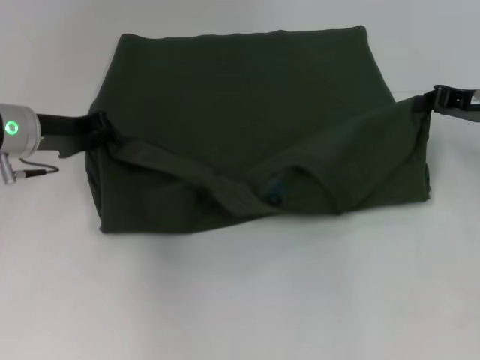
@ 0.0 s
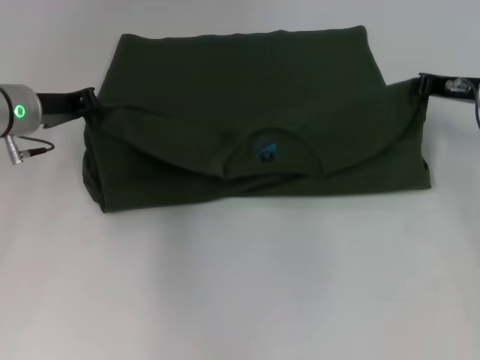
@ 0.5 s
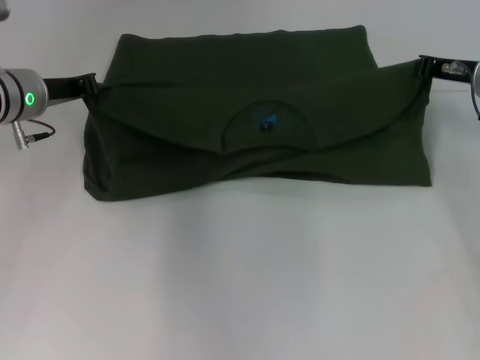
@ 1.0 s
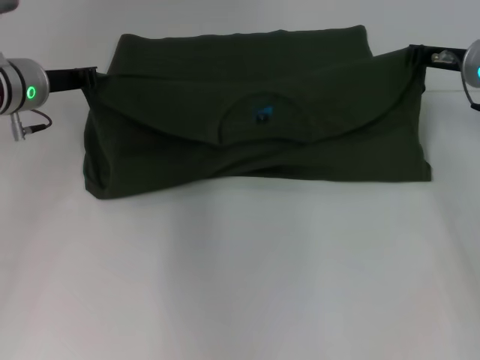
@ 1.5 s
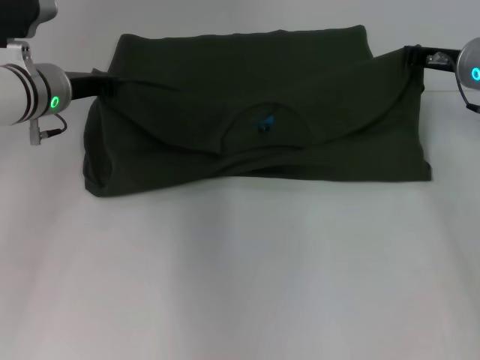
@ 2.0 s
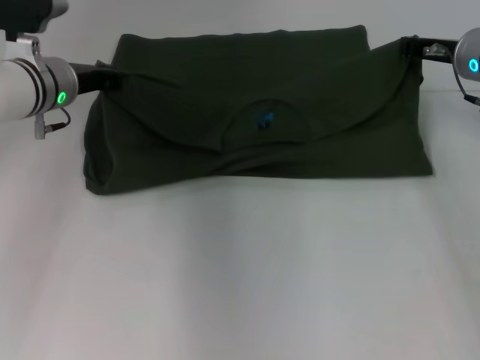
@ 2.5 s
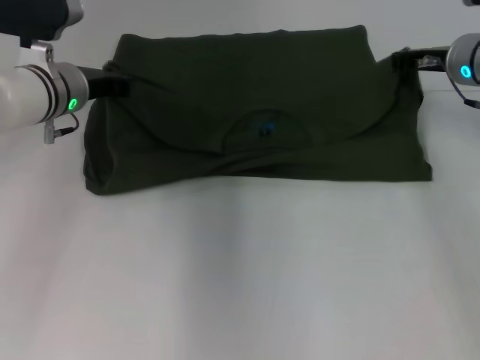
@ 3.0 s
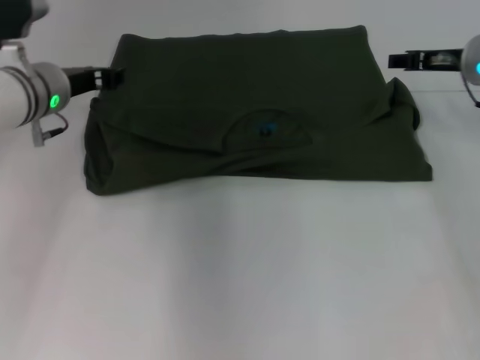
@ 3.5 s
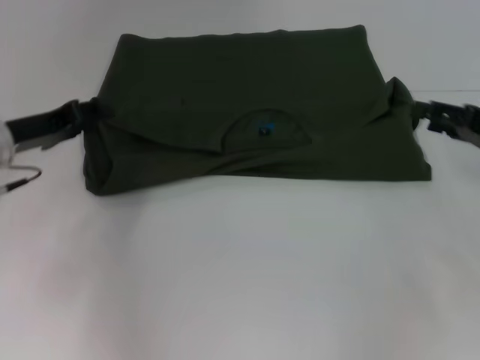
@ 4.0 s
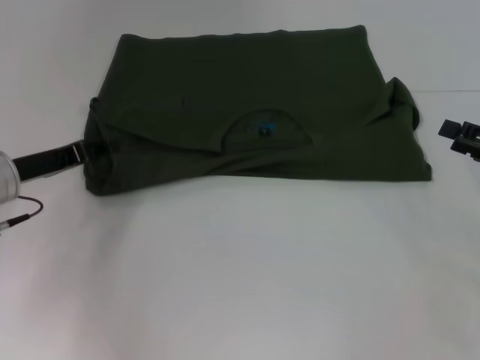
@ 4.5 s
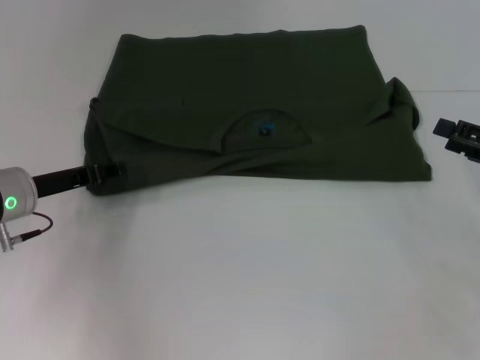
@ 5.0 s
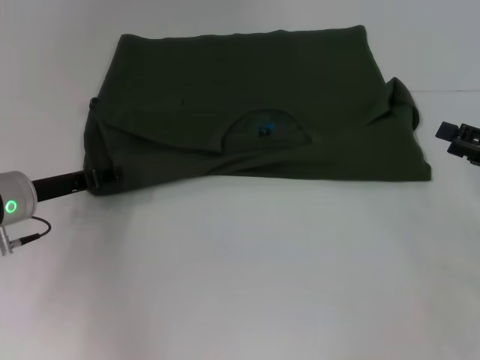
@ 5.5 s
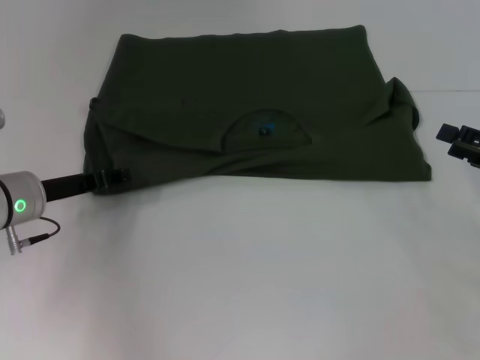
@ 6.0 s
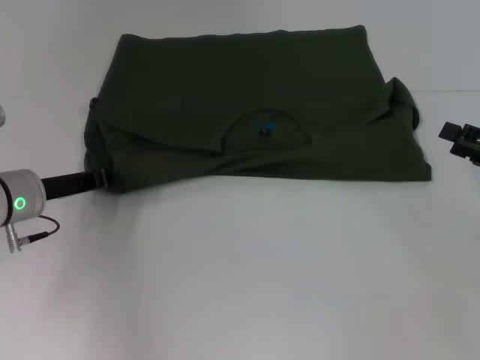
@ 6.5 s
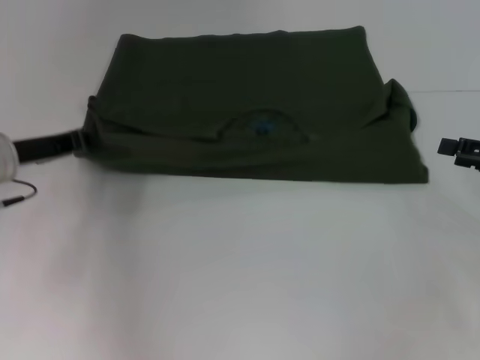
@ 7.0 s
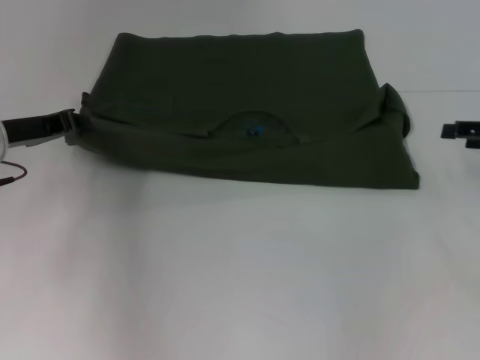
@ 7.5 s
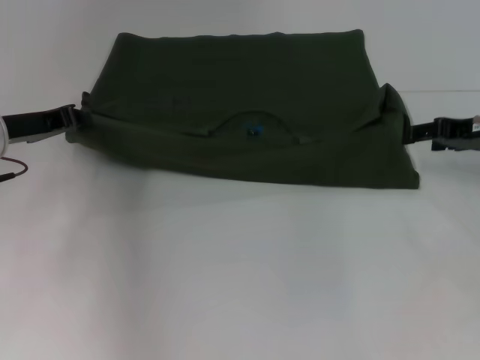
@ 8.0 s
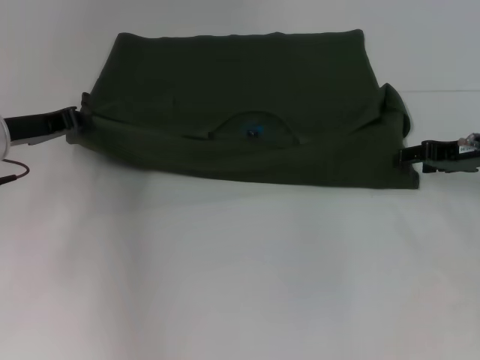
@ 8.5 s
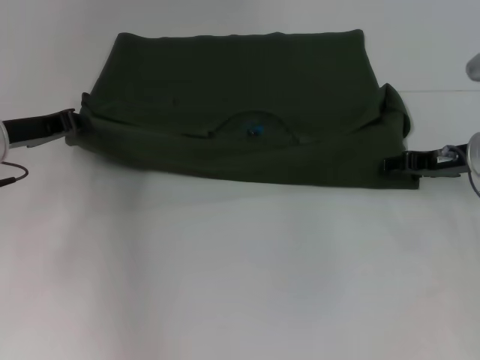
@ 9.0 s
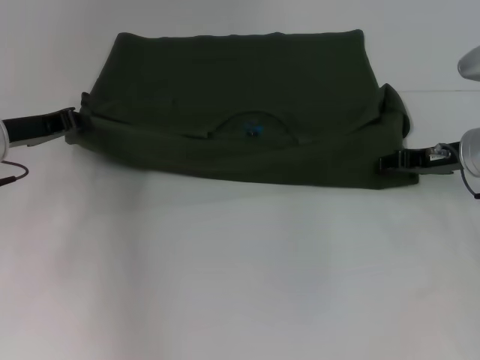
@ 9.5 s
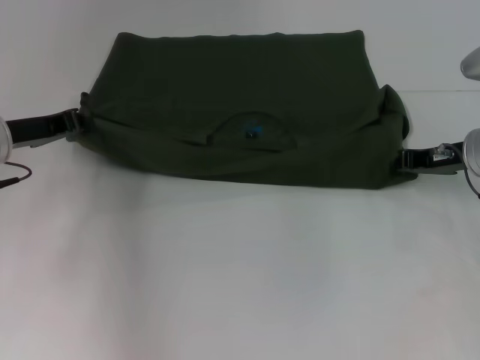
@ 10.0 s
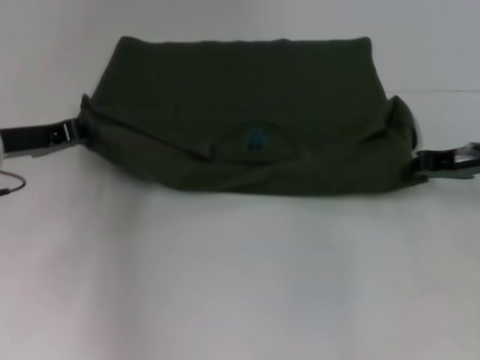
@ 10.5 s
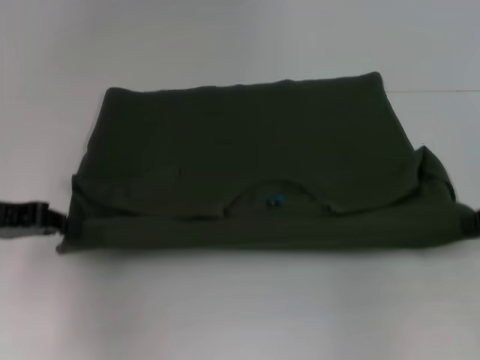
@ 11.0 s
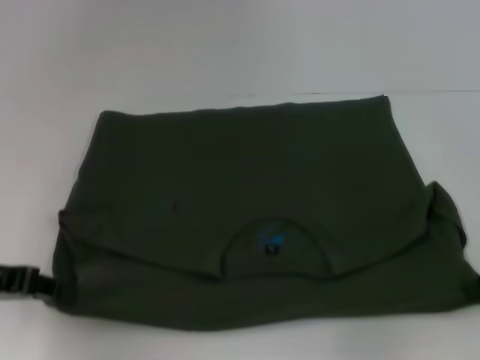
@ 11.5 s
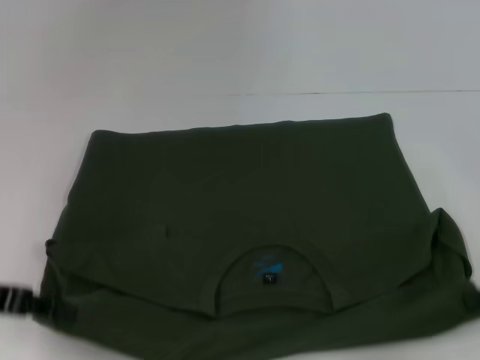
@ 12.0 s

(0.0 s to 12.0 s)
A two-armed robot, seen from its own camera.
Step, 0.0 s - 3.5 s: Fold the clothes with your left hand.
Step, 0.0 s - 3.5 s: Fold the clothes with your right hand.
Step, 4.0 s - 11.5 s: Pull the clothes with your left hand.
Step, 4.0 s - 11.5 s: Pull the clothes with your right hand.
0.0 s - 2.0 s: The right gripper heads to the left, covering approximately 5 cm, while the left gripper changes place by about 5 cm.
2.0 s - 4.0 s: The left gripper travels backward and to the left by about 10 cm, and opens its fingers. Meanwhile the right gripper goes about 15 cm backward and to the right, and opens.
4.0 s - 6.0 s: The right gripper ends up some 5 cm from where it was. Meanwhile the left gripper is displaced downward by roughly 5 cm.
6.0 s - 8.0 s: The left gripper shifts roughly 5 cm upward, and closes its fingers; the right gripper heads forward, covering roughly 10 cm.
8.0 s - 10.0 s: The right gripper shifts by approximately 5 cm, and closes its fingers.
10.0 s - 12.0 s: The left gripper moves backward, some 15 cm. The right gripper shifts roughly 15 cm backward and to the right.

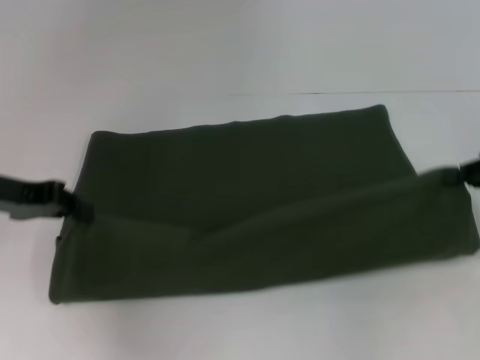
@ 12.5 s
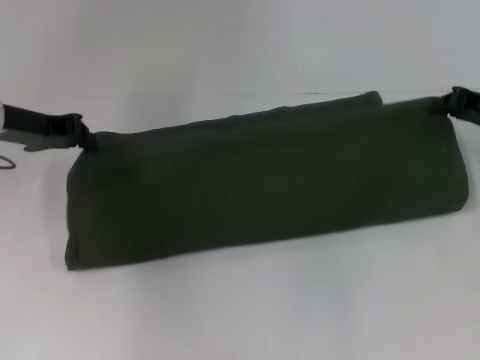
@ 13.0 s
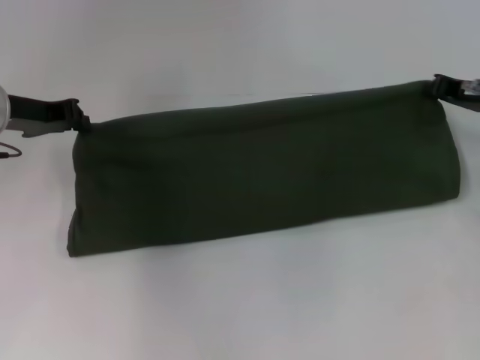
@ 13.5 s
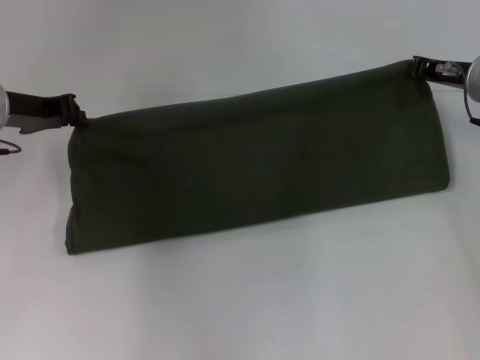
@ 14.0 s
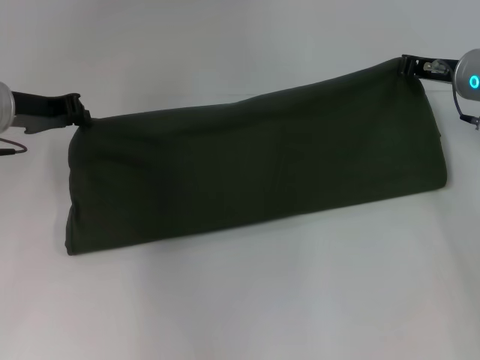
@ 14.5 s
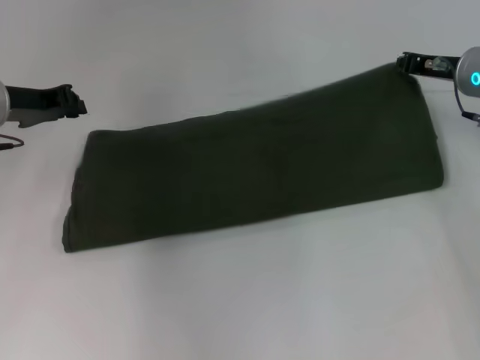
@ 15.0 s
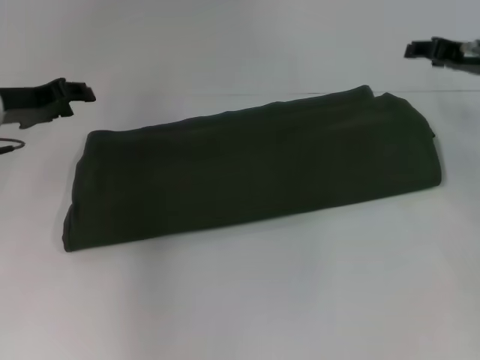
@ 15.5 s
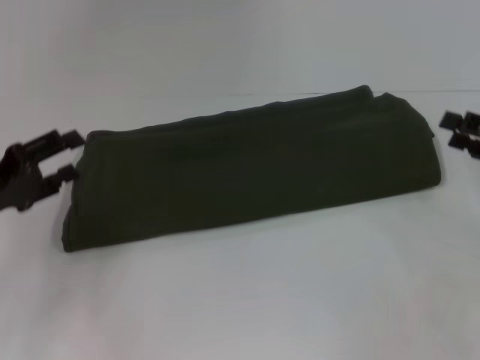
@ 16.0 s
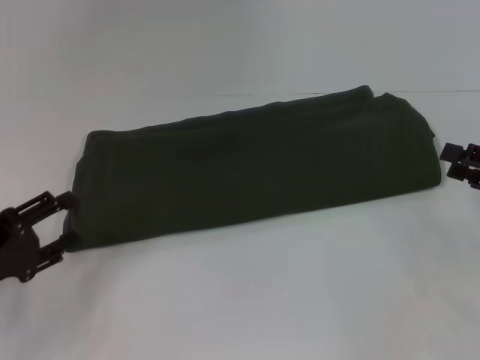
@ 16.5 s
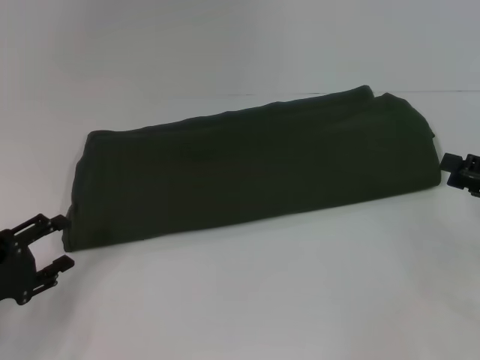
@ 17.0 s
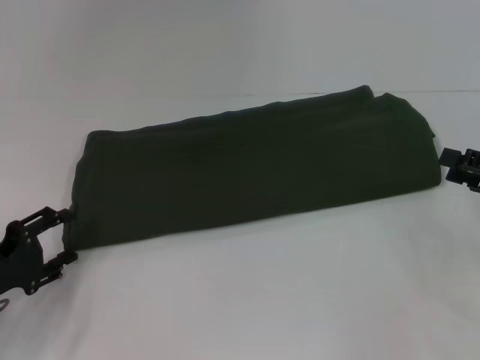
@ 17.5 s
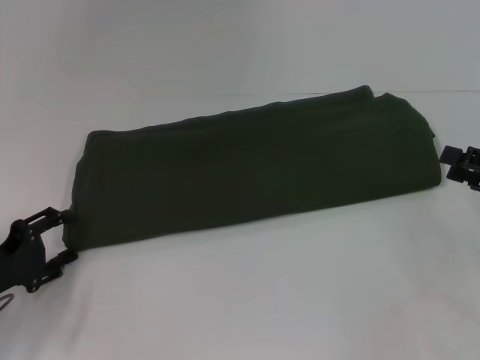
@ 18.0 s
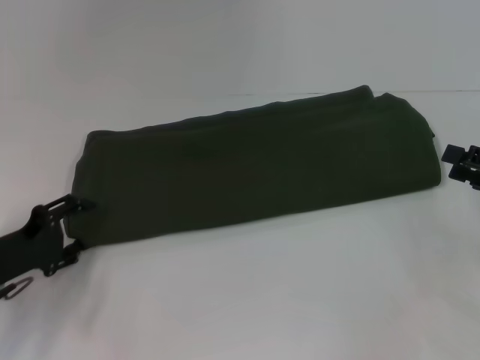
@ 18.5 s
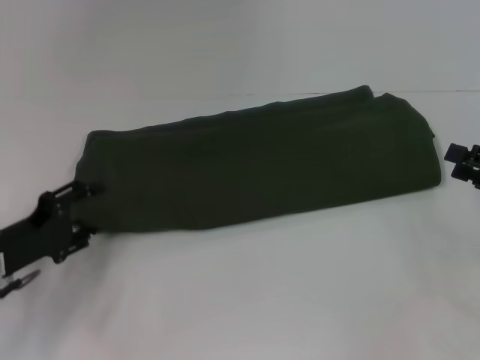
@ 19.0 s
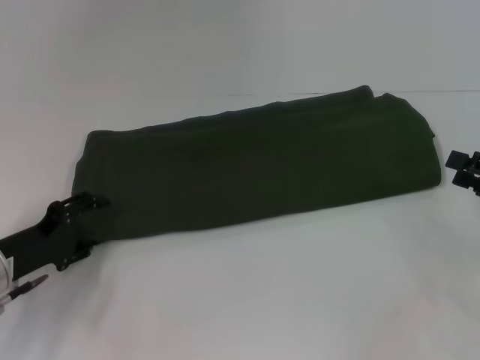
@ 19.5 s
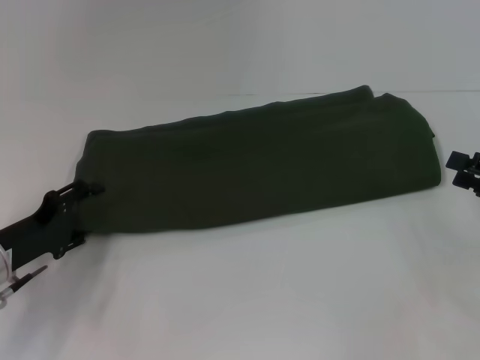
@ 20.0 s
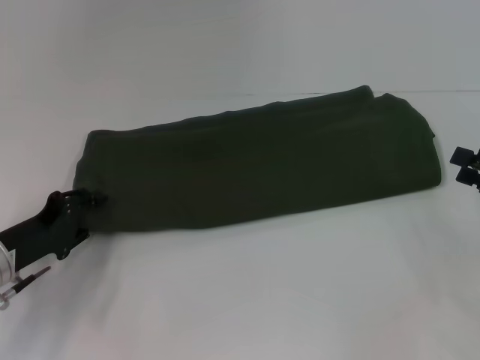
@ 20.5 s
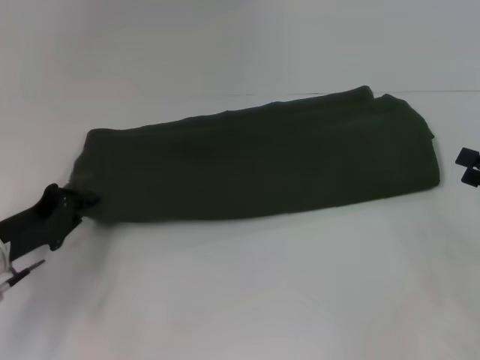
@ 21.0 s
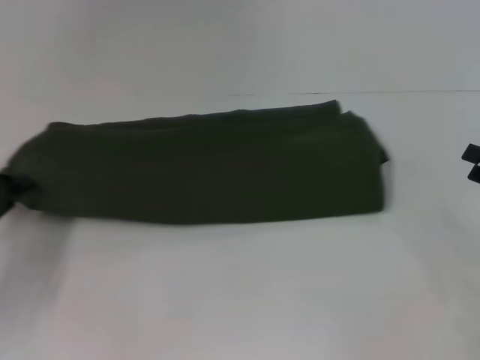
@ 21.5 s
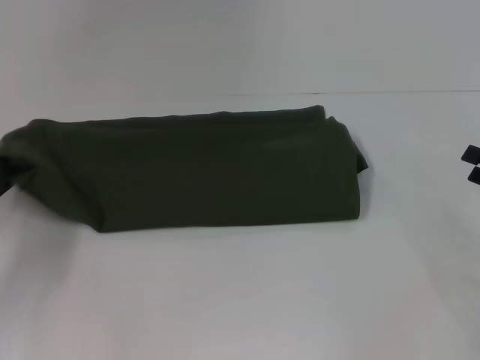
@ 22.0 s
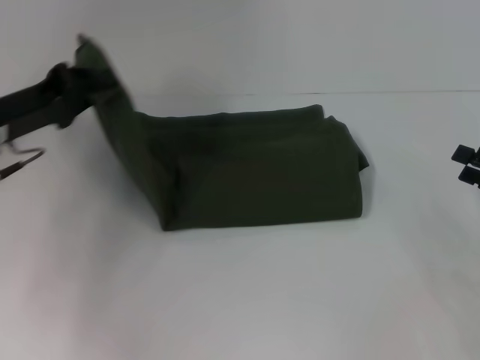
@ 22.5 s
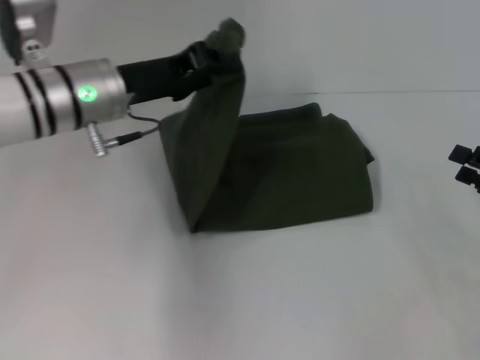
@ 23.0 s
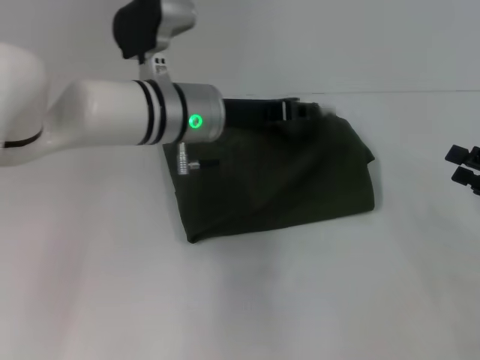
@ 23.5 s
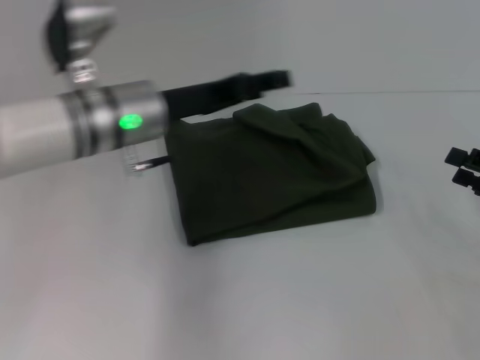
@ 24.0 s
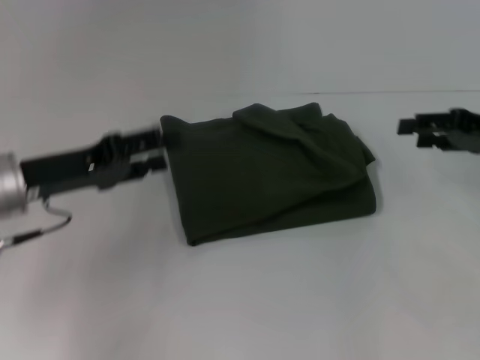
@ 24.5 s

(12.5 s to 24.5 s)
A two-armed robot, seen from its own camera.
Step, 12.5 s - 15.5 s: Fold the clothes with your right hand.
Step, 12.5 s - 23.5 s: Fold the clothes with your left hand.
12.5 s - 14.5 s: The left gripper shifts roughly 10 cm forward. Meanwhile the right gripper heads forward and to the left, covering approximately 15 cm.
14.5 s - 16.5 s: The right gripper shifts about 20 cm backward and to the right, and opens its fingers, while the left gripper is displaced backward and downward by about 20 cm, and opens its fingers.
16.5 s - 18.5 s: The left gripper shifts by approximately 5 cm.
18.5 s - 20.5 s: The grippers move only a little.
20.5 s - 22.5 s: The left gripper travels upward and forward by approximately 15 cm, and closes.
22.5 s - 24.5 s: The right gripper heads forward and upward, covering some 10 cm, while the left gripper goes to the right and returns, roughly 20 cm each way, and opens.

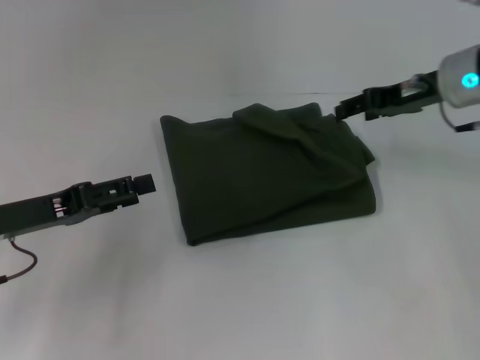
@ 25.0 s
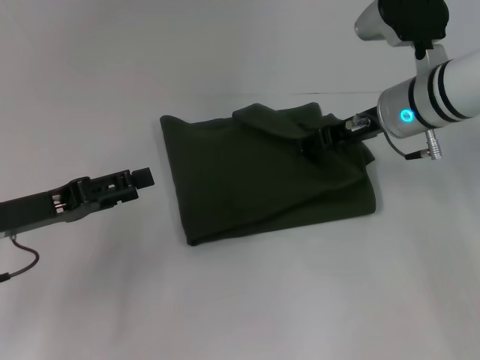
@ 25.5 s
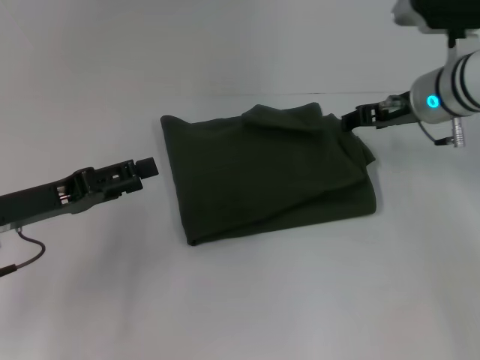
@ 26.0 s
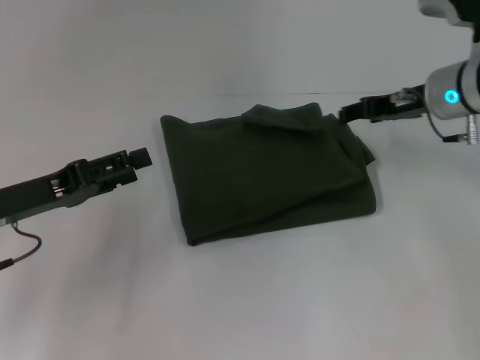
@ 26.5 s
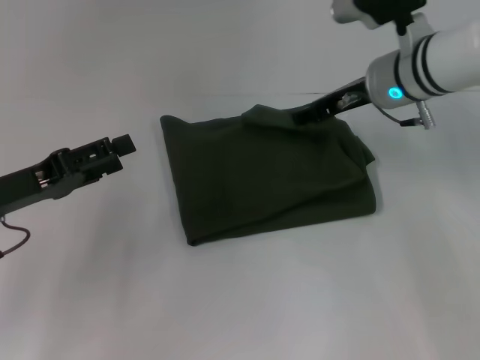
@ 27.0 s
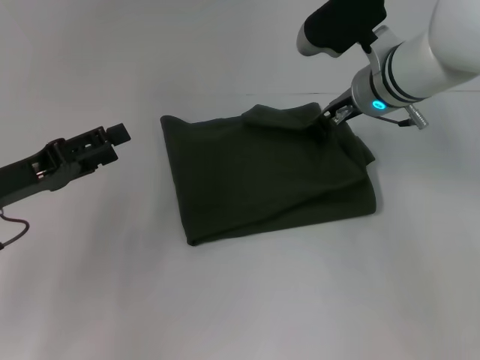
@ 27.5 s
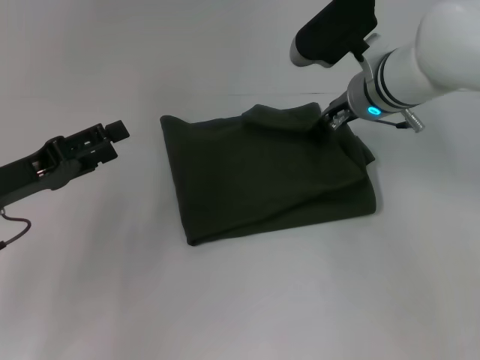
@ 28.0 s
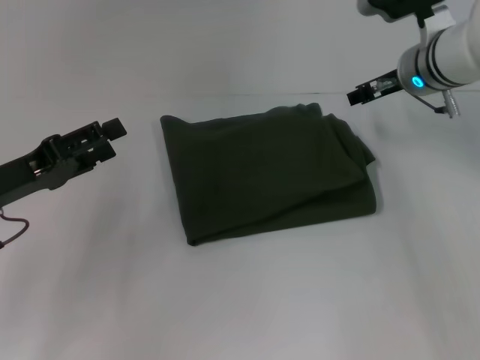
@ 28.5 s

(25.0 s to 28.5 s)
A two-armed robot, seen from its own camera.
25.0 s - 27.0 s: The right gripper swings left and right, roughly 5 cm each way, with 2 reversals.
27.0 s - 28.5 s: The grippers move only a little.
